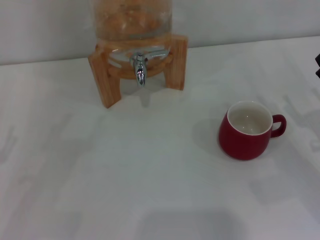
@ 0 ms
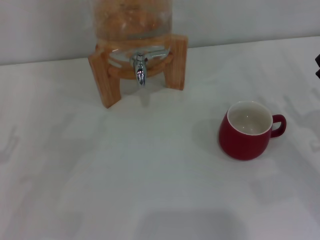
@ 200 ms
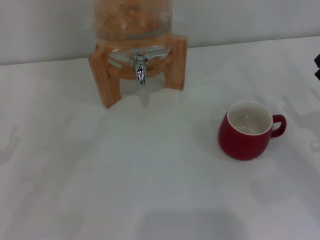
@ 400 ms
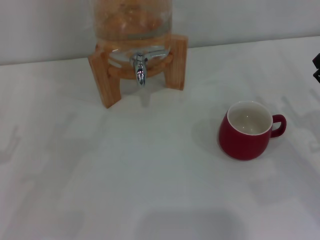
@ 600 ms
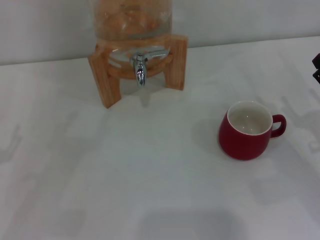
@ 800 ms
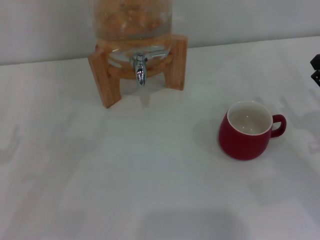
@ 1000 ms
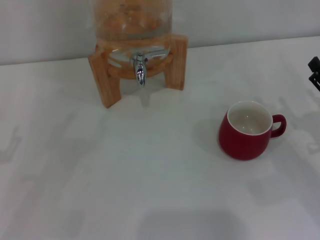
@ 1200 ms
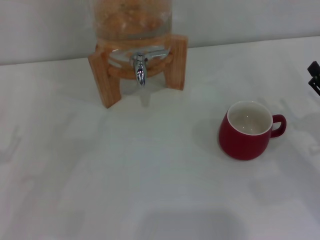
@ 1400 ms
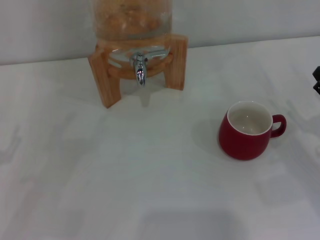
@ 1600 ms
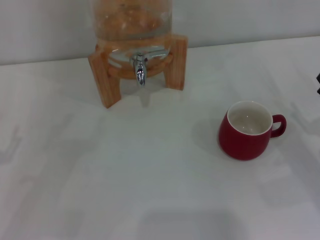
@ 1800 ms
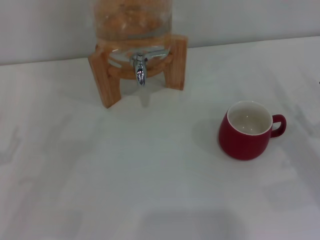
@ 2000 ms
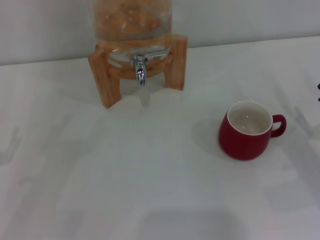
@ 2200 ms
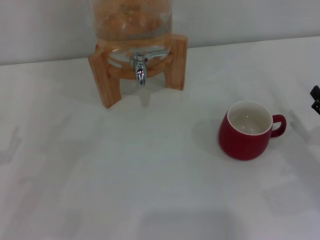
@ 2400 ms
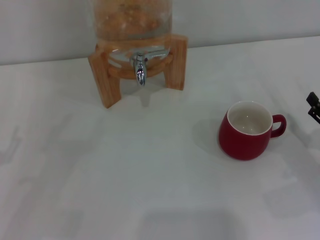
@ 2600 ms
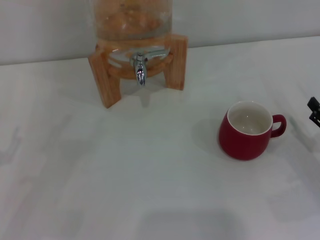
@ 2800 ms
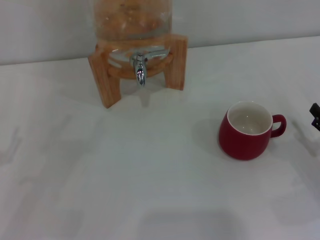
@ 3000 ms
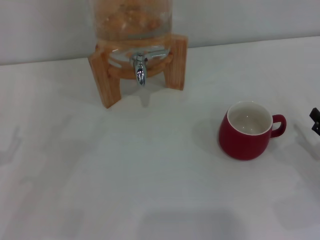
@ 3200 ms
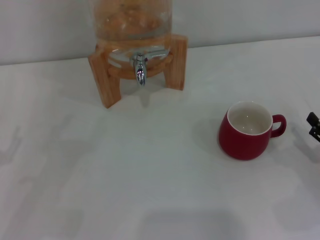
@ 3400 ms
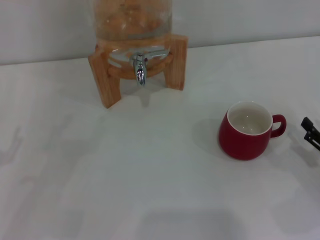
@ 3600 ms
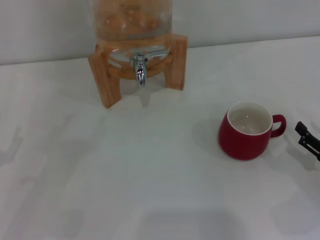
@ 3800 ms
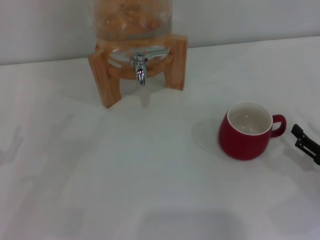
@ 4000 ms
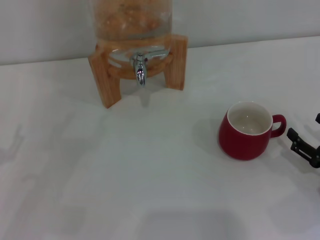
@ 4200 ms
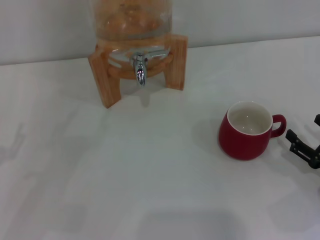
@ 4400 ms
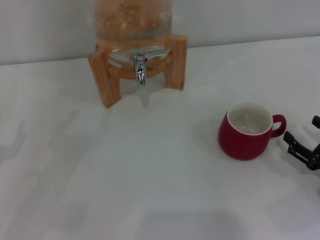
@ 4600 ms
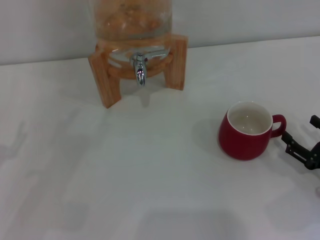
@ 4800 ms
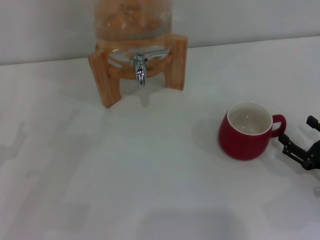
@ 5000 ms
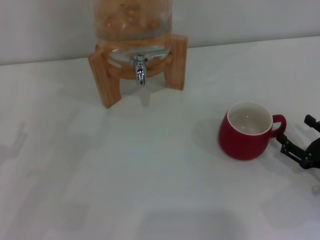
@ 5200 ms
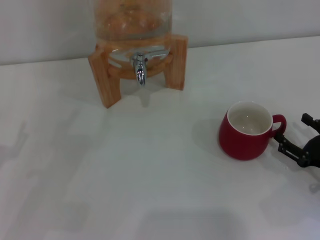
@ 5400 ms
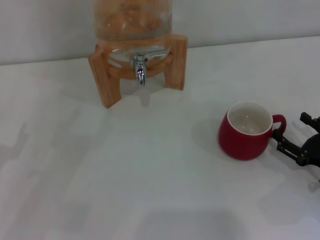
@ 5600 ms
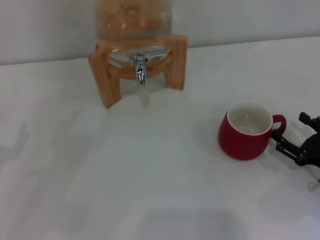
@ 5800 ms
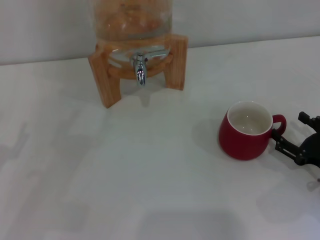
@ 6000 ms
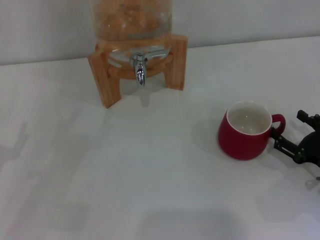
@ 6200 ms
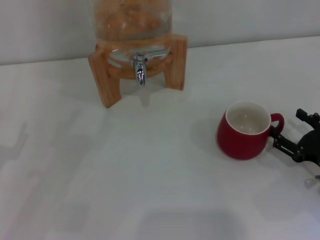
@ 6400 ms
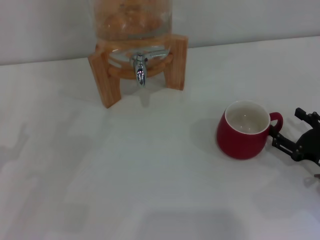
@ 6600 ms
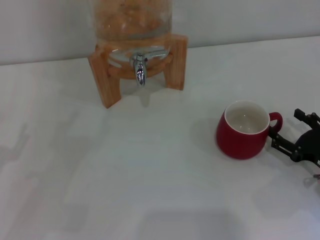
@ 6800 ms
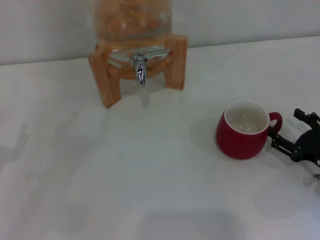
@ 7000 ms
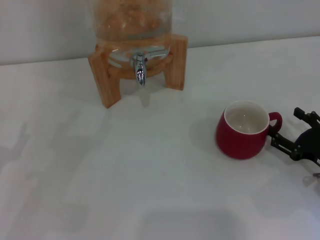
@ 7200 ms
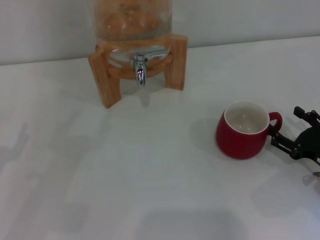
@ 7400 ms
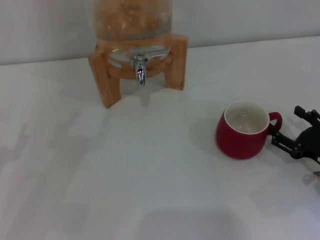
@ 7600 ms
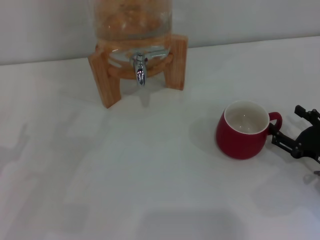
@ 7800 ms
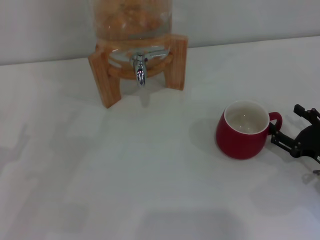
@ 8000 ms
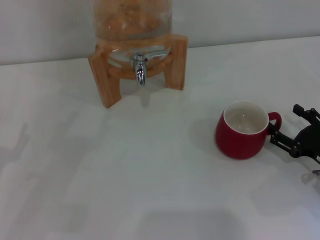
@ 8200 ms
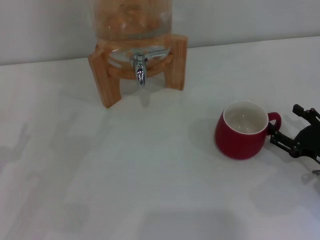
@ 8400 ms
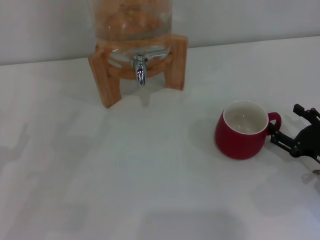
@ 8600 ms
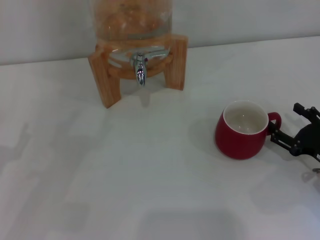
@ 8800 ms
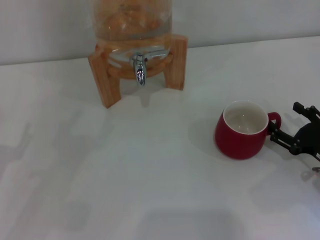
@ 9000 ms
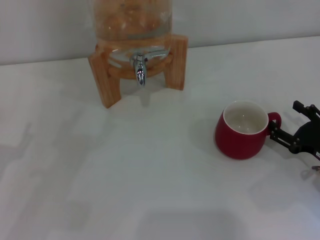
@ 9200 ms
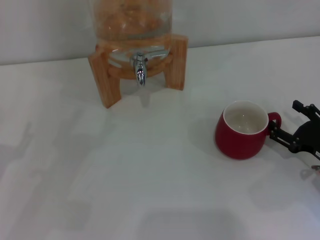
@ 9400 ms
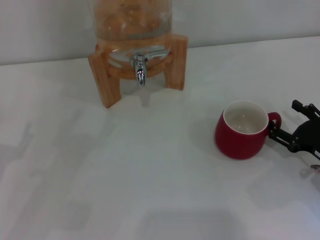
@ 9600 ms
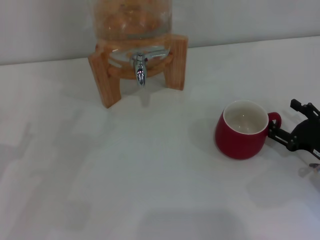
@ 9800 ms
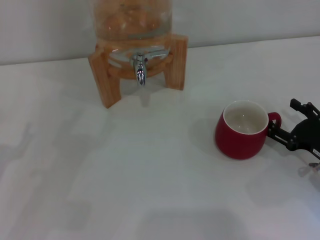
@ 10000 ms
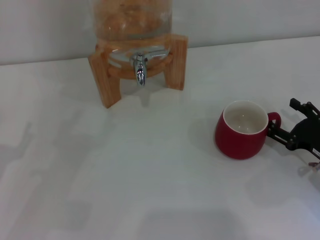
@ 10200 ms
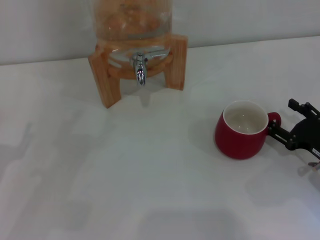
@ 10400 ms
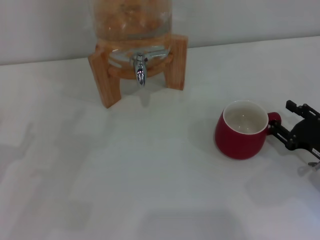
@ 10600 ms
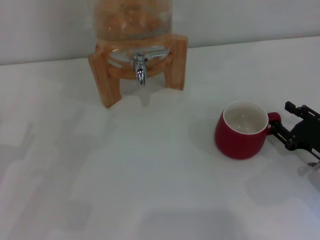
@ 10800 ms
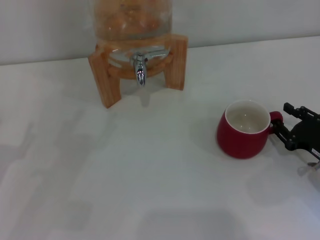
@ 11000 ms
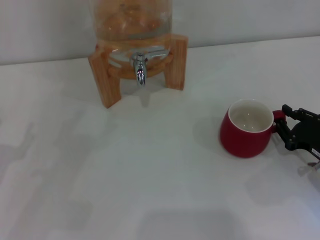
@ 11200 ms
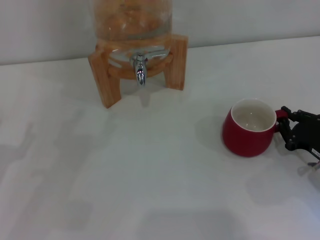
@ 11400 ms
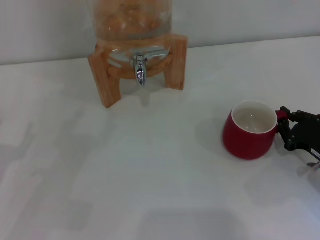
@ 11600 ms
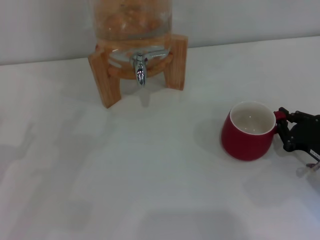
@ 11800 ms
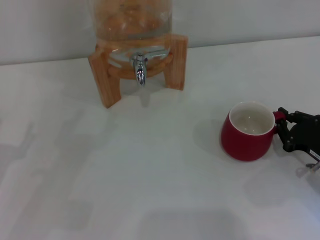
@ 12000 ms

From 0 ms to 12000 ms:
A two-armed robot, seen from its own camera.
Task of the whole recording: the right gripper pick up the red cup and place it horizontally under the faucet, the left gripper turn on the faucet to fill the cup, and then turn off the faucet.
From 3000 ms to 6000 ms: The grippers move only a little.
From 6000 ms to 7600 ms: Both grippers stay about where they are.
From 7600 ms to 9000 ms: Both grippers stay put.
From 9000 ms to 10400 ms: Both grippers stay about where they are.
From 10400 ms to 12000 ms: The right gripper closes.

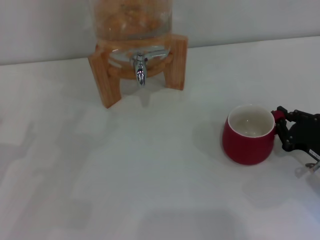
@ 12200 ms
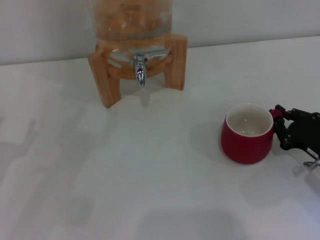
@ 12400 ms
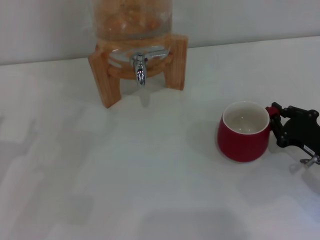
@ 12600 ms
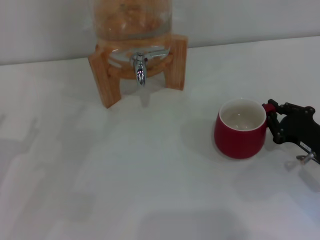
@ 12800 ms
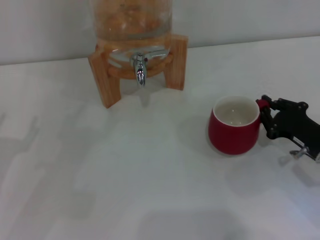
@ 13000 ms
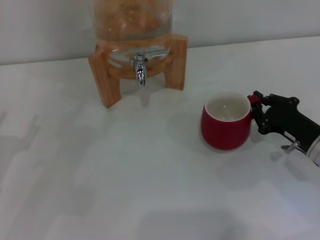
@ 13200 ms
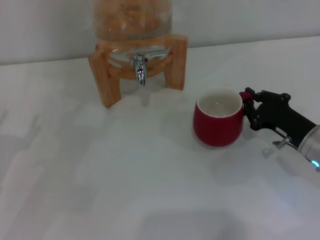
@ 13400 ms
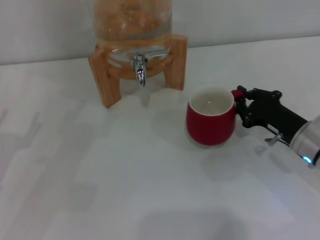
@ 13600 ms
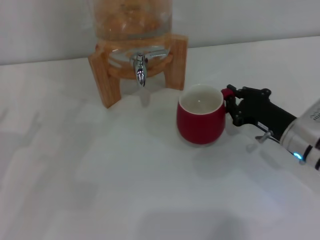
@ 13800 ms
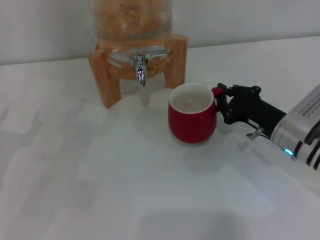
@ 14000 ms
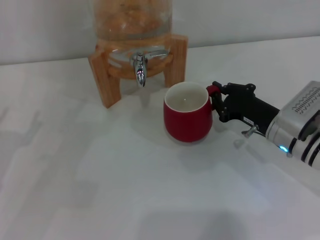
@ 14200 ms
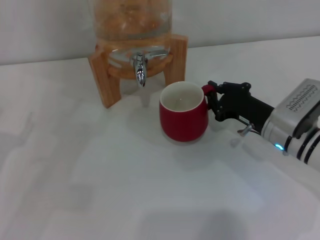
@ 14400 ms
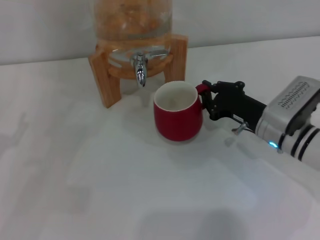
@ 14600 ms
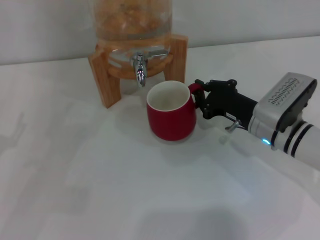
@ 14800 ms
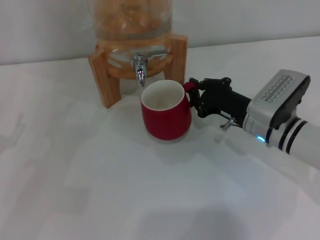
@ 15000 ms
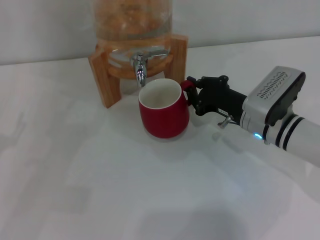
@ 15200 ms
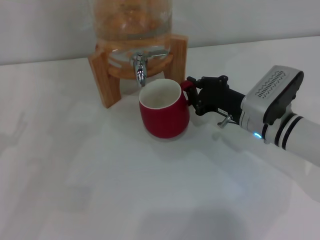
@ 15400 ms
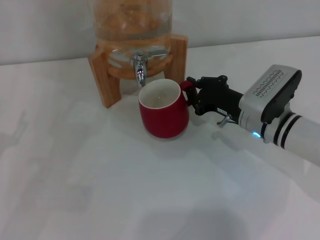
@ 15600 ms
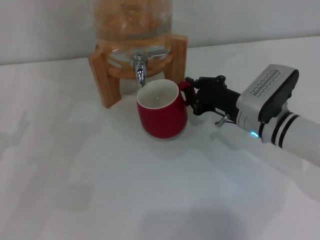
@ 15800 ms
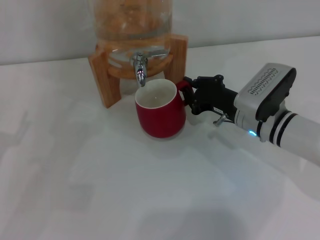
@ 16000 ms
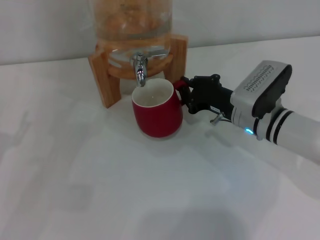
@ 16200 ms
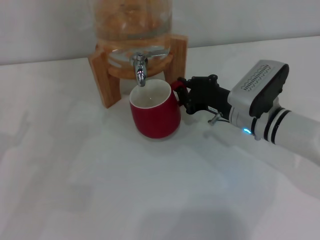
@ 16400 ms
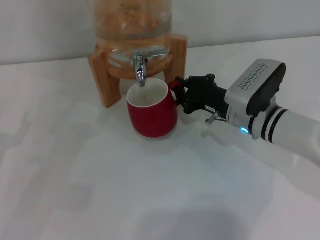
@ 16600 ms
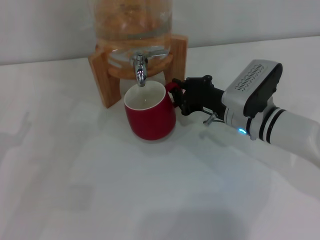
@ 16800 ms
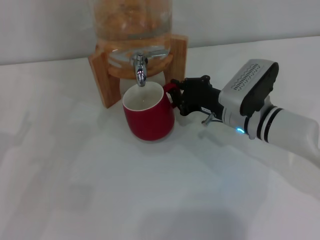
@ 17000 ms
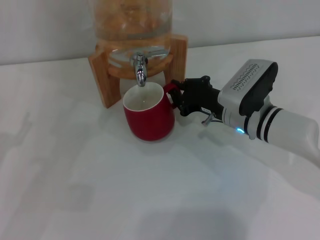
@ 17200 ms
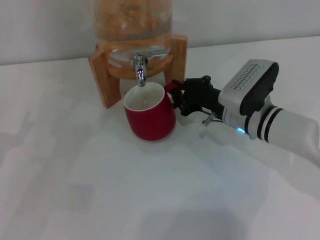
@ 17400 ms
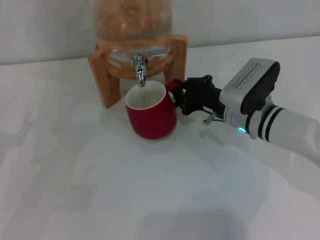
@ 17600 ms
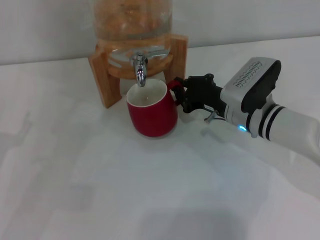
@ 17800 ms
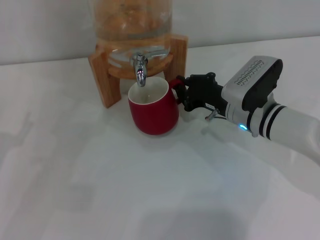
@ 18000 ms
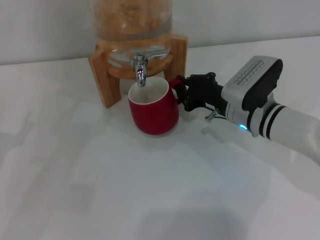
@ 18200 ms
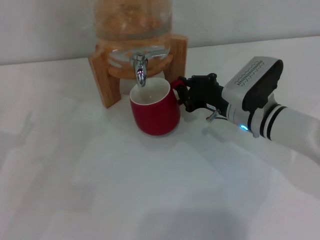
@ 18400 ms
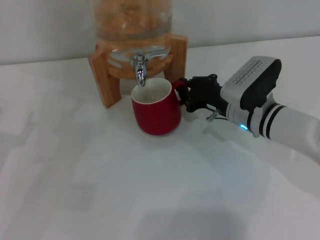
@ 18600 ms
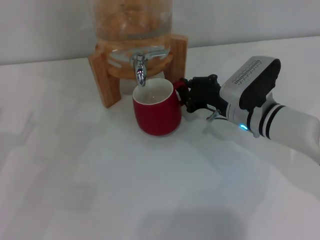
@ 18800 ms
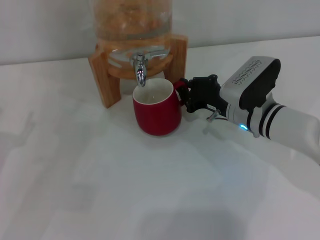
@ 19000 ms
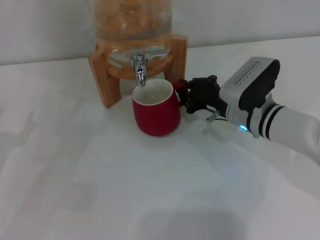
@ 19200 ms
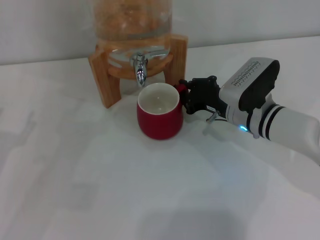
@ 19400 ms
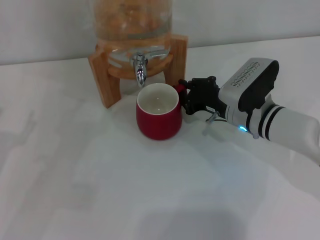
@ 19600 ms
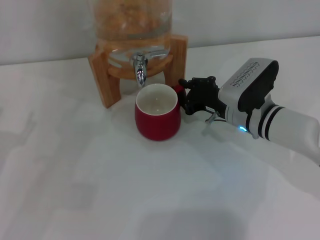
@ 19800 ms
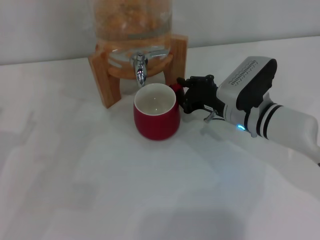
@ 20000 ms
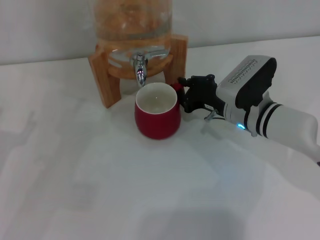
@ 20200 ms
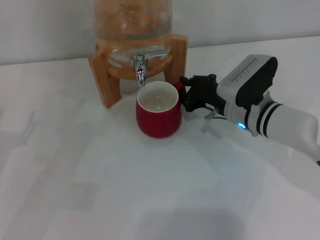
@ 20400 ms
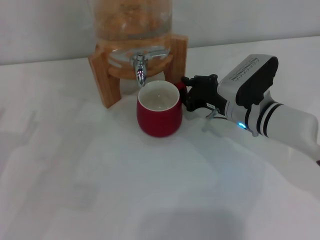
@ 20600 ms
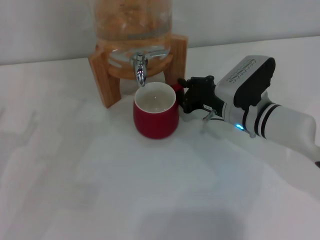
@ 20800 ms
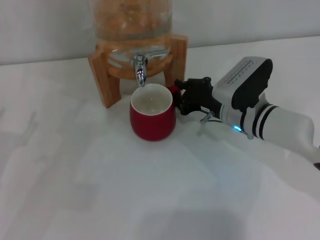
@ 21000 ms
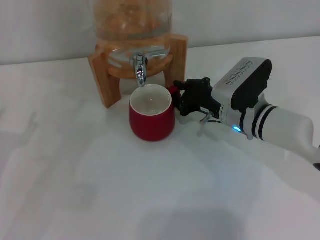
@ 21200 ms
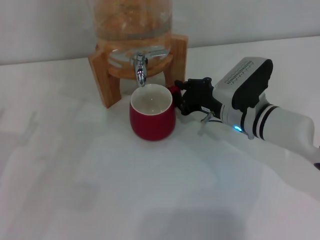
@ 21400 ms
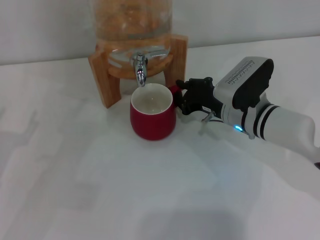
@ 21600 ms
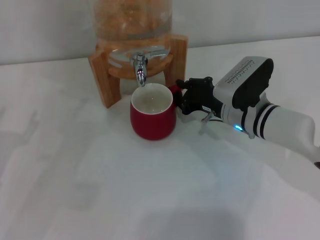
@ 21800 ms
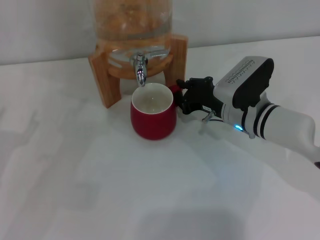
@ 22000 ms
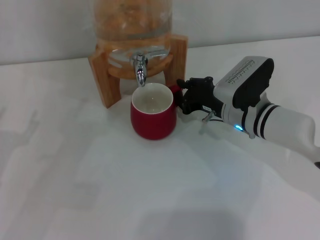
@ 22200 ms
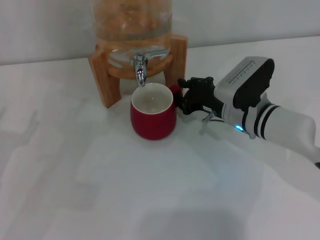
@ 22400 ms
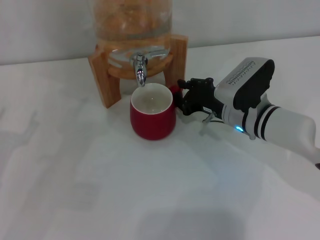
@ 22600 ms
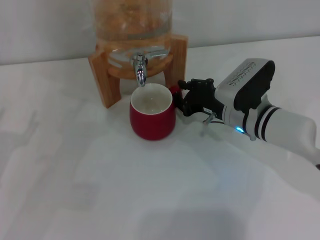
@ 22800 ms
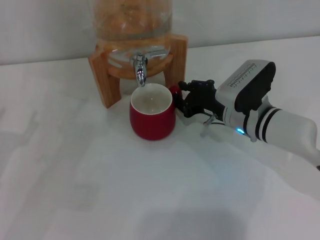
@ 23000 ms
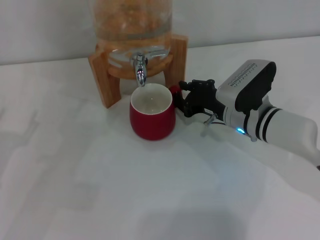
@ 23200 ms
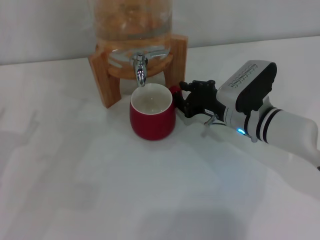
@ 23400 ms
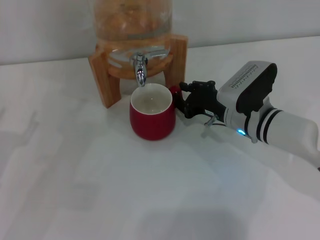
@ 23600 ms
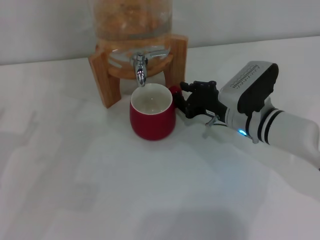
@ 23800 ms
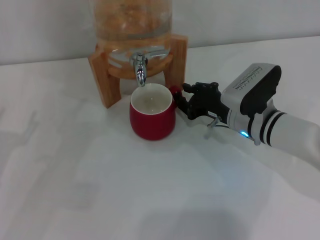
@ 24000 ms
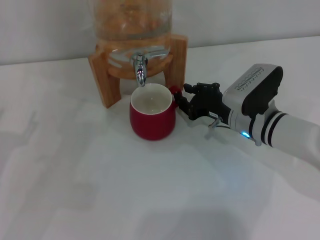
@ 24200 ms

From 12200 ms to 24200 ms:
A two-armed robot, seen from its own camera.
Task of the whole recording: the right gripper pick up the red cup and place it horizontally under the faucet, the left gripper turn on the faucet to fill the cup, and then turn off the faucet.
From 12200 ms to 13800 ms: The right gripper moves forward and to the left, about 10 cm.
From 13800 ms to 15200 ms: The right gripper shifts some 5 cm to the left.
From 15200 ms to 16600 ms: The grippers move only a little.
From 16600 ms to 19800 ms: Both grippers stay put.
From 19800 ms to 22600 ms: The two grippers keep their place.
From 22600 ms to 24200 ms: There are only small adjustments of the grippers.
